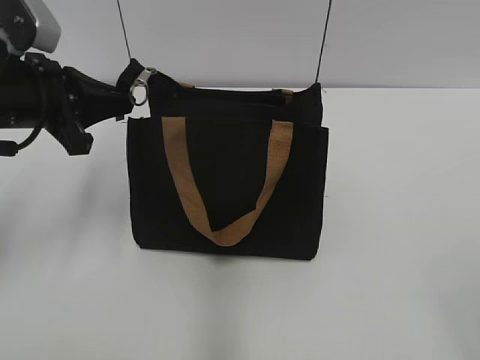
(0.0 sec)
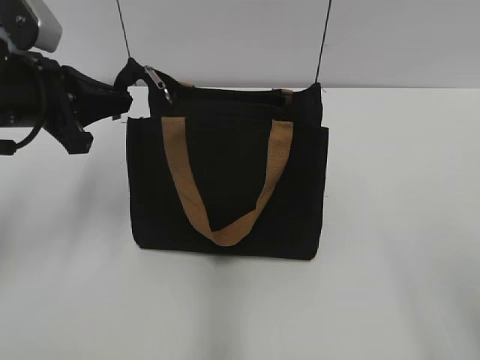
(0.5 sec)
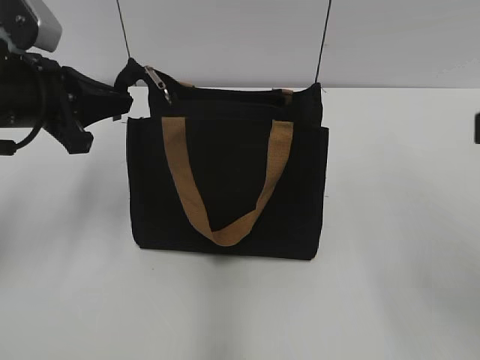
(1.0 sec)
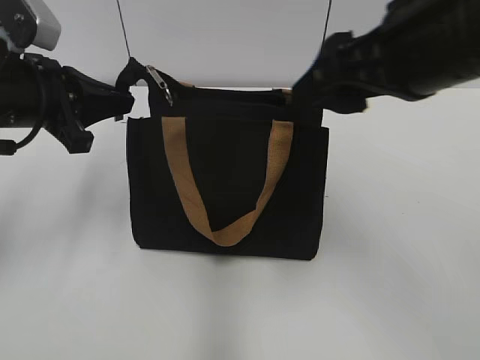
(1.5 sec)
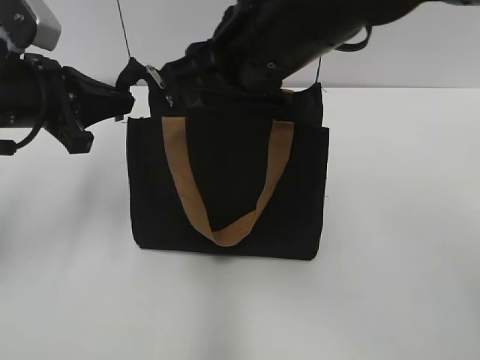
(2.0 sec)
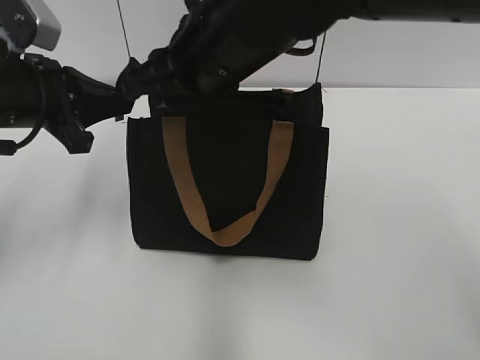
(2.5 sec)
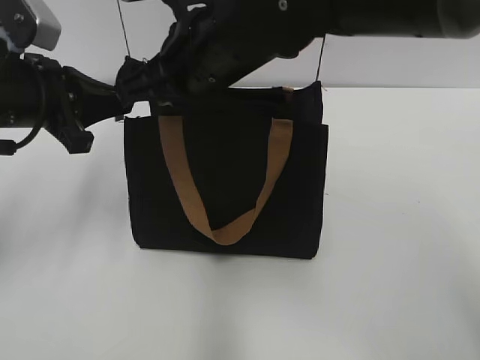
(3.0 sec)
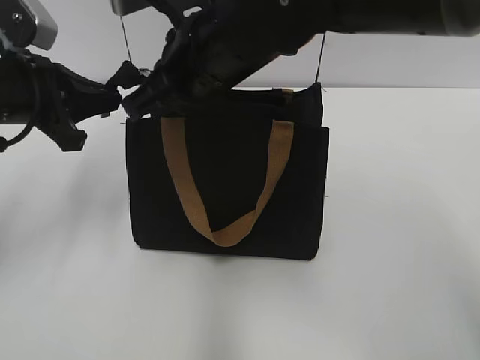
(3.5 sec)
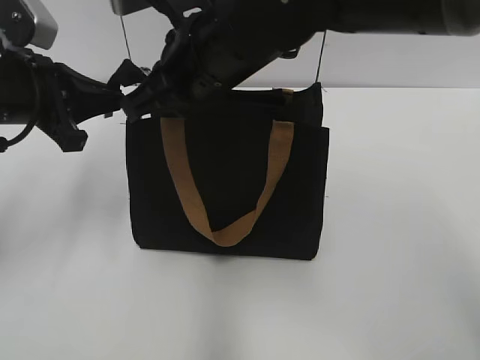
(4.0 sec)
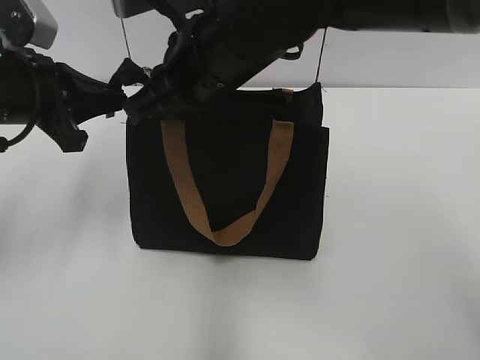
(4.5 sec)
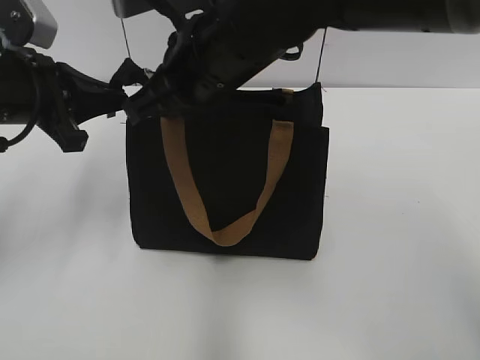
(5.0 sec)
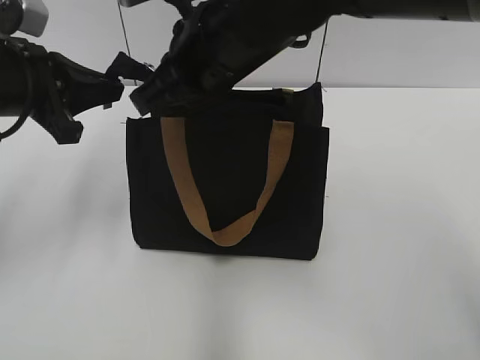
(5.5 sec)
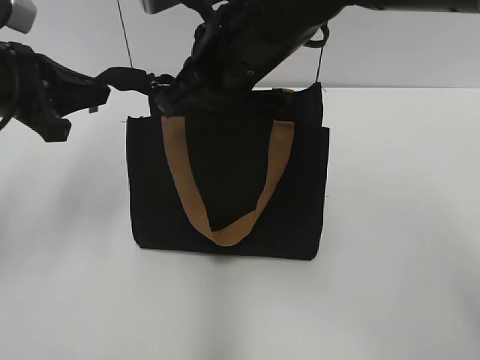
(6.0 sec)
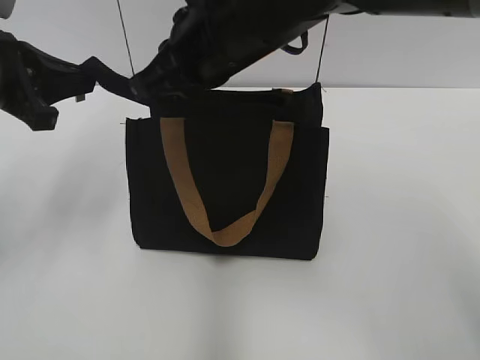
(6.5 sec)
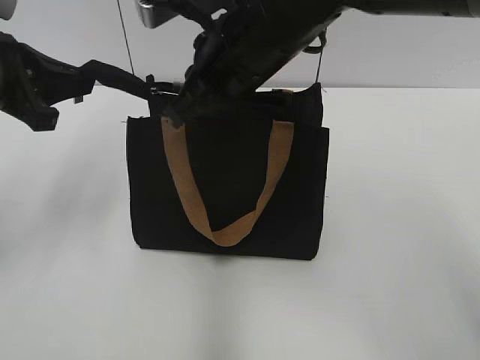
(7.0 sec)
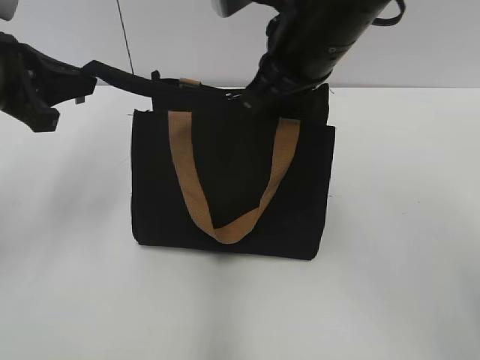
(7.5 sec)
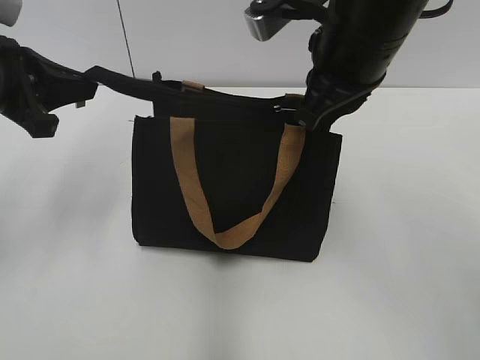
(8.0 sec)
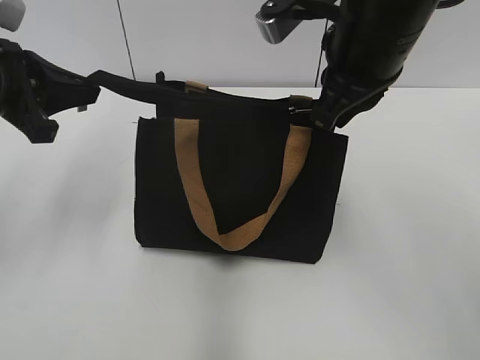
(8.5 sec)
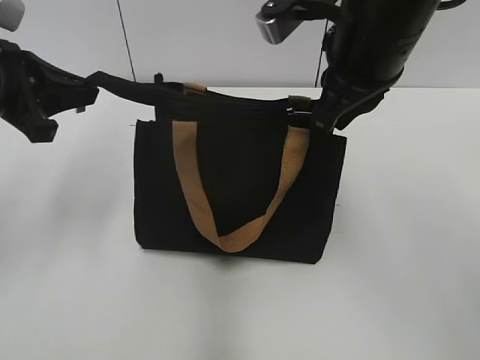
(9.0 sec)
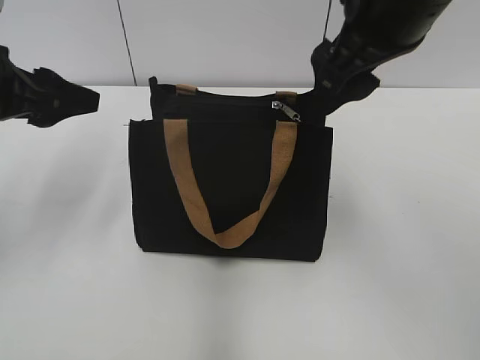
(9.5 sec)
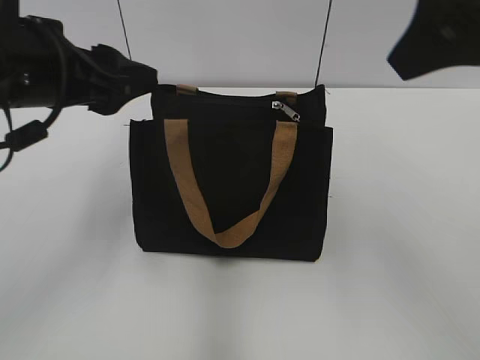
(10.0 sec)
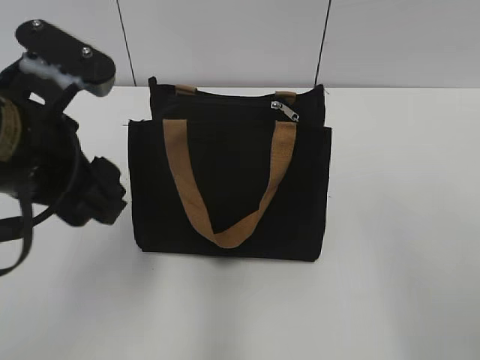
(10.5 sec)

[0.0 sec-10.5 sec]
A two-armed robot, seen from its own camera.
Step, 0.0 sec to 9.0 sec: Zip up the bag with your right hand.
0.0 sec to 2.0 sec: The right gripper shifts about 40 cm forward and to the left, and closes.
2.0 sec to 4.0 sec: The right gripper ends up approximately 5 cm from where it was, and closes.
4.0 sec to 6.5 sec: The grippers make only small movements.
6.5 sec to 8.5 sec: The right gripper moves to the right, approximately 10 cm.
8.5 sec to 10.5 sec: The left gripper is displaced to the right and backward by roughly 10 cm, and opens. The right gripper is displaced backward and to the right by roughly 25 cm, and opens its fingers.

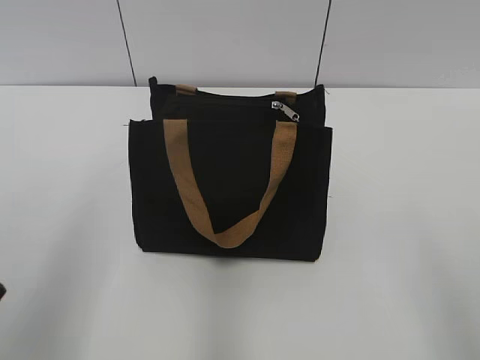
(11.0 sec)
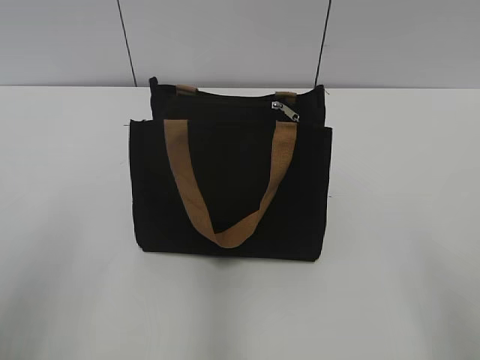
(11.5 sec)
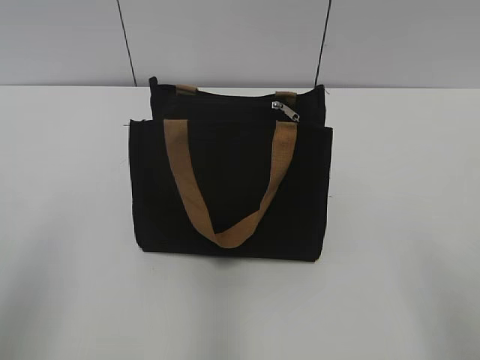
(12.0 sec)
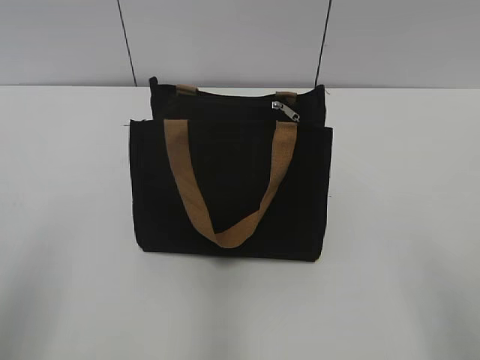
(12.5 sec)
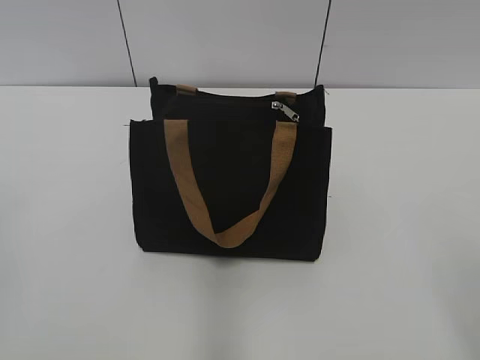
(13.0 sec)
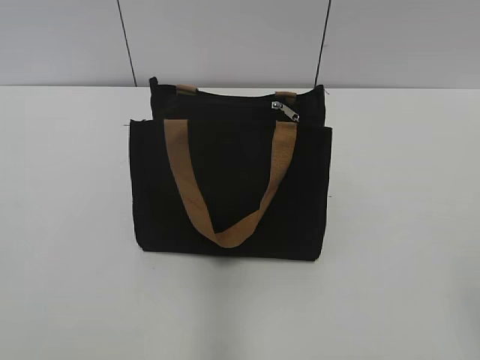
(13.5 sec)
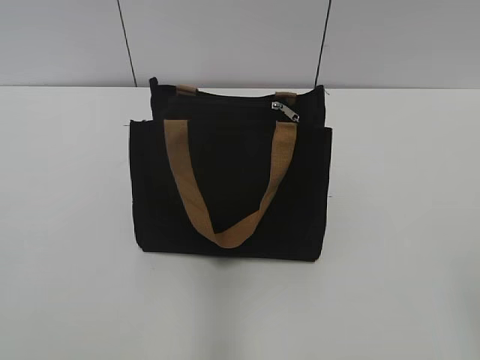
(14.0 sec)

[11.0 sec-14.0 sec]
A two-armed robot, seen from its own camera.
12.5 sec to 14.0 sec: The left gripper heads backward and to the left, covering some 10 cm. The right gripper is displaced backward by roughly 5 cm.

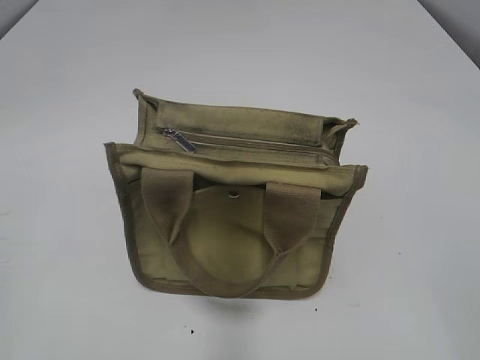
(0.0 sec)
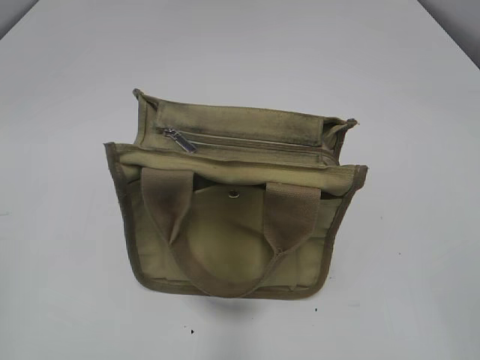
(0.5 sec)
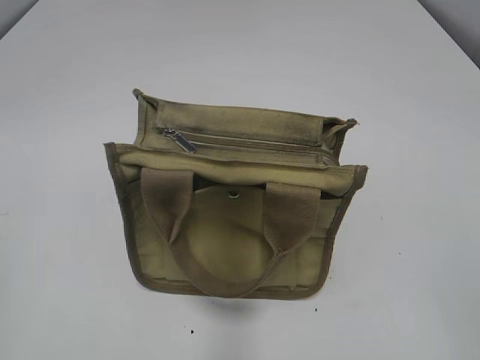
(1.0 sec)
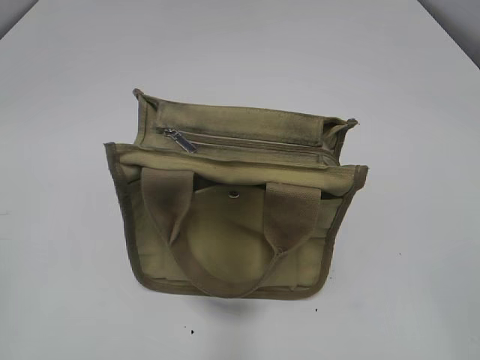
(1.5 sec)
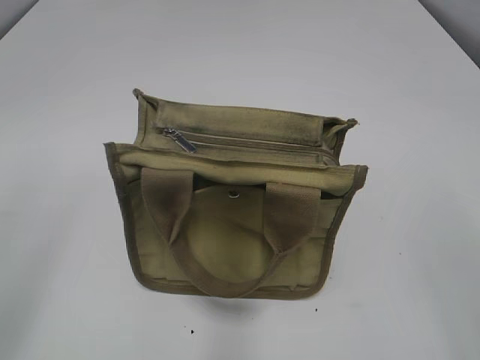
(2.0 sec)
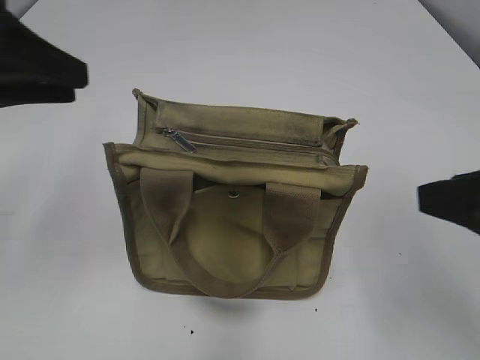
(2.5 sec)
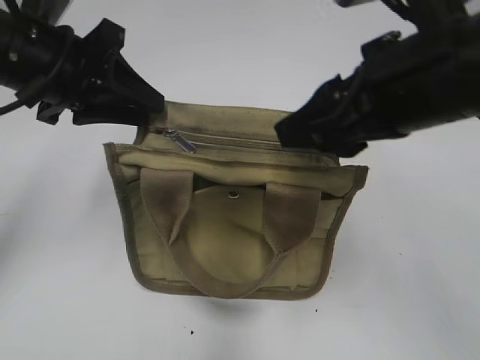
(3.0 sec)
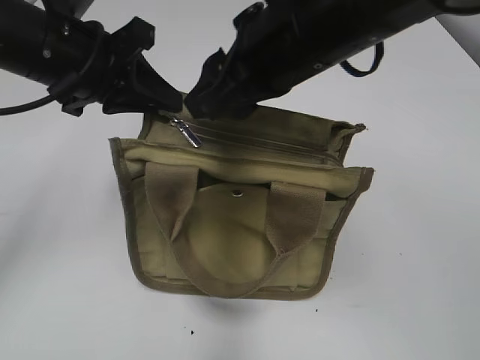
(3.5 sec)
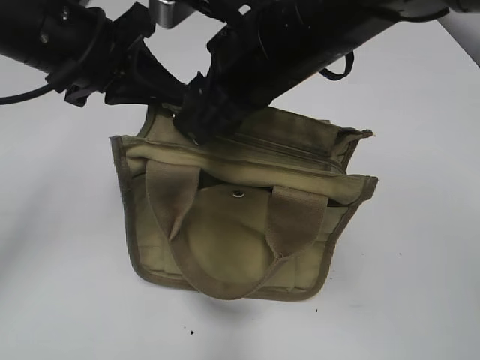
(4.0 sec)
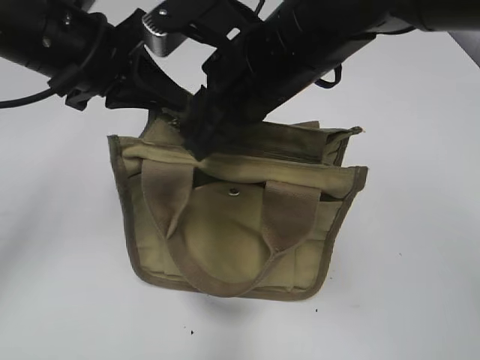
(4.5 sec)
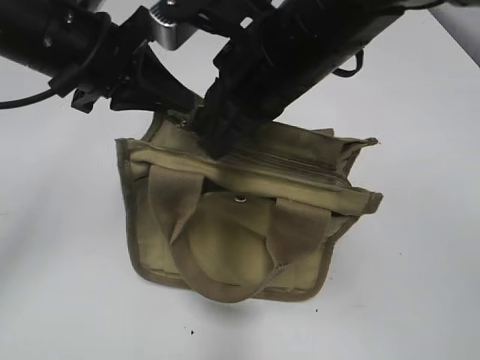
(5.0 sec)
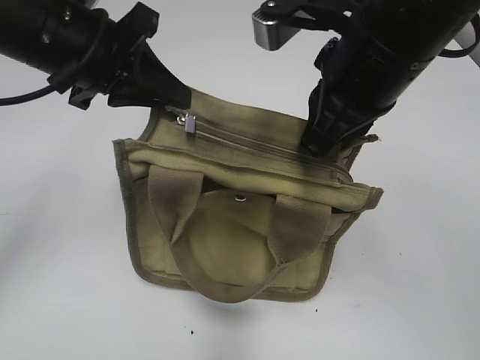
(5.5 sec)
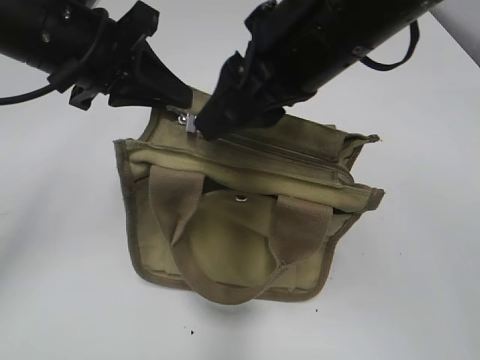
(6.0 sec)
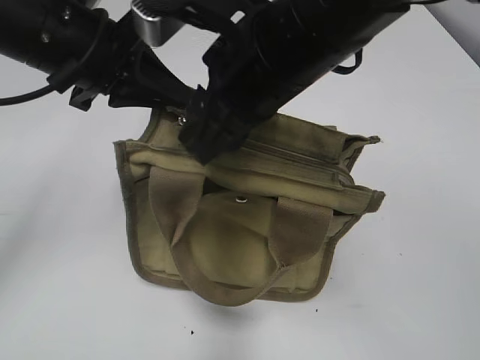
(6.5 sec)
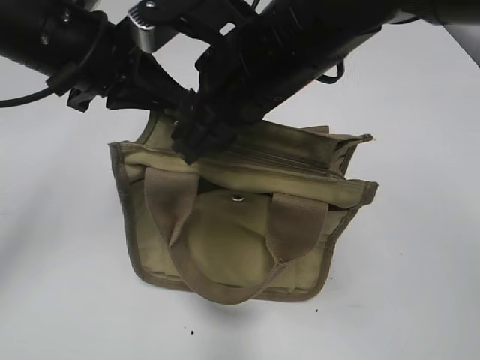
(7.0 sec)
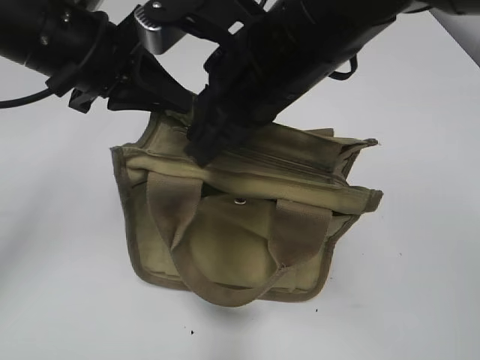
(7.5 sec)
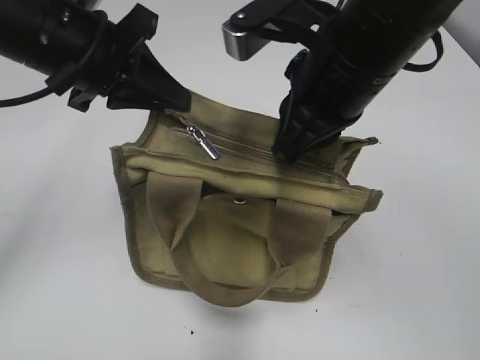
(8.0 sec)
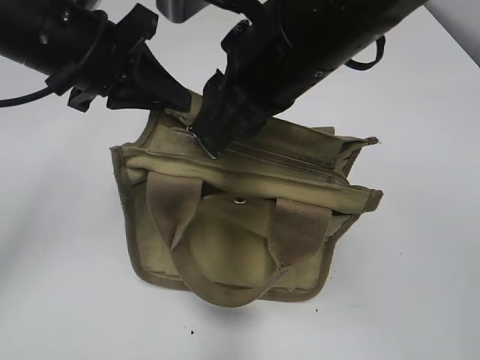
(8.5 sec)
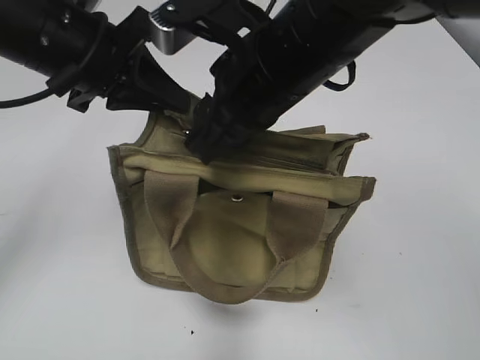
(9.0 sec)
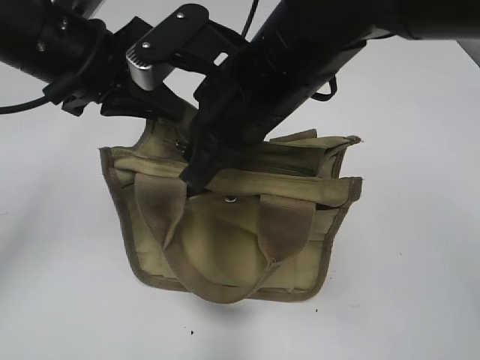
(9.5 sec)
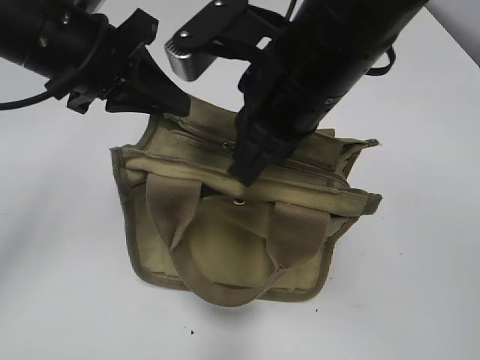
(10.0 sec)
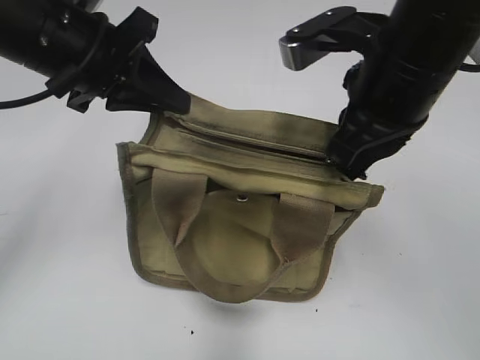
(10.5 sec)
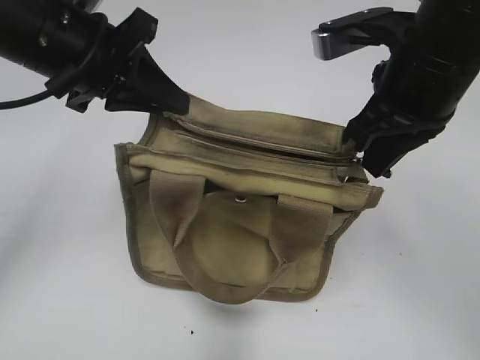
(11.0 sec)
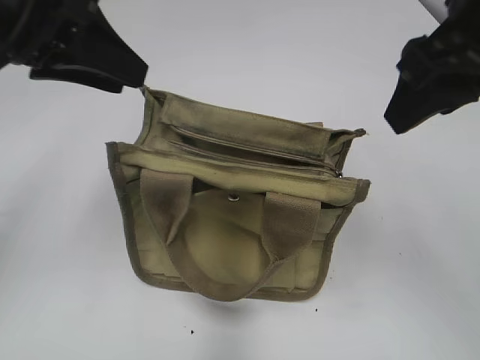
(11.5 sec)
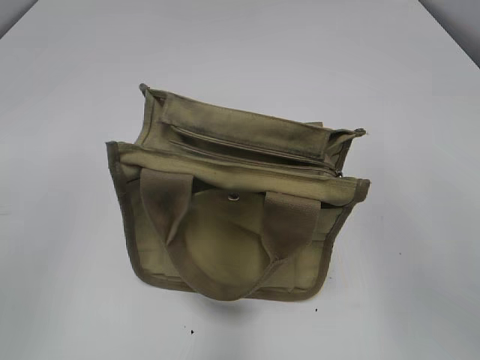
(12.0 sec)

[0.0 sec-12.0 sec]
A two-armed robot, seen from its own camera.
Step, 0.0 sec to 11.0 sec: Pull open the zipper with your right hand.
2.0 sec to 4.0 sec: The right gripper shifts approximately 35 cm forward and to the left; the left gripper heads forward and to the right, covering approximately 30 cm, and closes.
4.0 sec to 6.0 sec: The right gripper shifts by about 5 cm, and closes and opens again.
6.0 sec to 8.0 sec: The right gripper closes up.
8.0 sec to 10.0 sec: The right gripper opens, then closes once more.
10.0 sec to 12.0 sec: The right gripper heads to the right, backward and upward, covering about 20 cm, and opens its fingers. The left gripper goes roughly 20 cm backward, to the left and upward, and opens.
